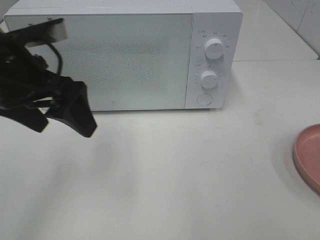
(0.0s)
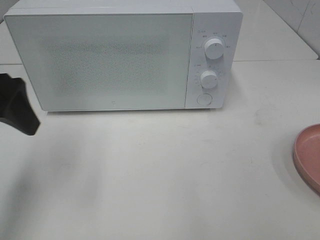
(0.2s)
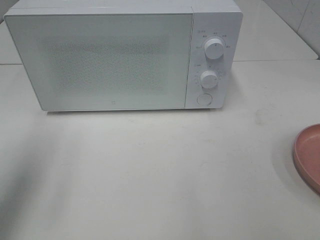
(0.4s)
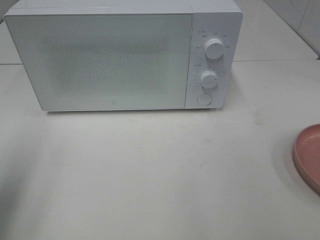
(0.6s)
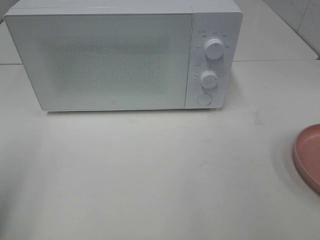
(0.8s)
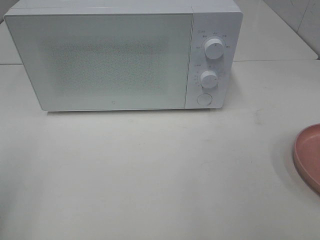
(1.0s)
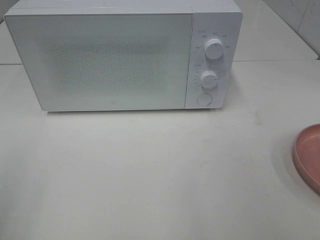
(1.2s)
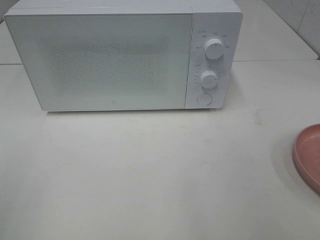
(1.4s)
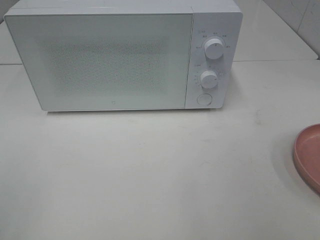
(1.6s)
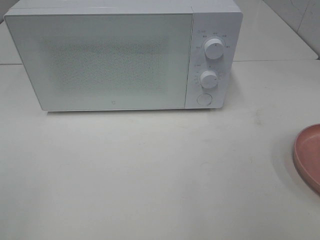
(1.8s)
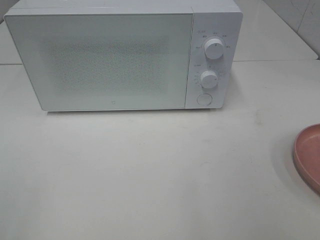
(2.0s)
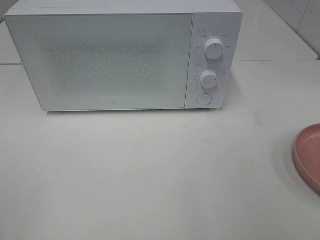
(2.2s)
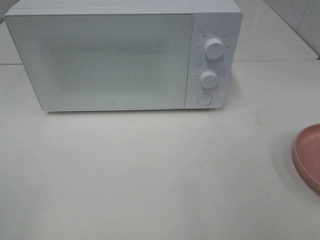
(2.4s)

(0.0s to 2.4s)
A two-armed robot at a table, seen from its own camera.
Task of the whole recording: Heat the burger.
0.0s - 1.2s: The left gripper heads backward and to the left, covering roughly 25 cm.

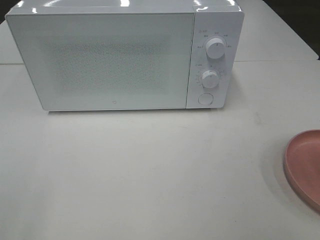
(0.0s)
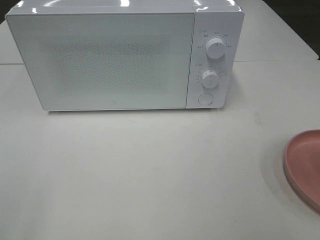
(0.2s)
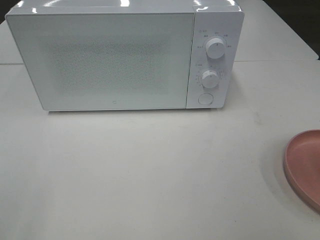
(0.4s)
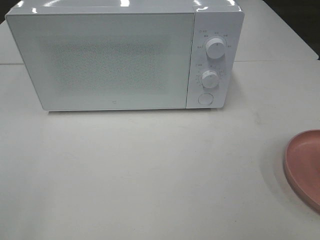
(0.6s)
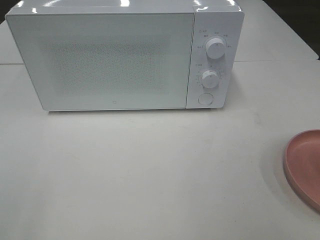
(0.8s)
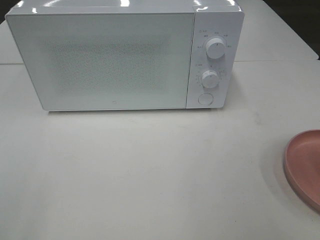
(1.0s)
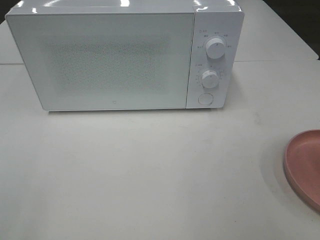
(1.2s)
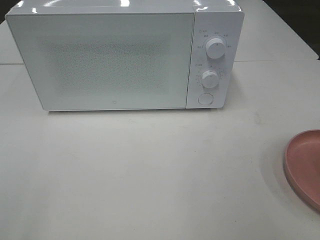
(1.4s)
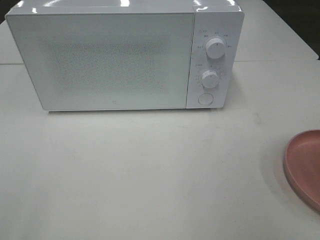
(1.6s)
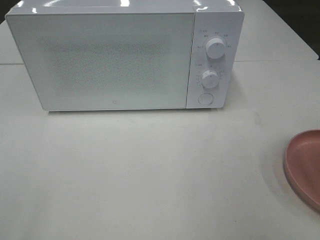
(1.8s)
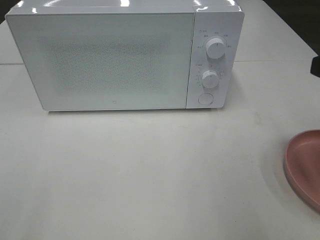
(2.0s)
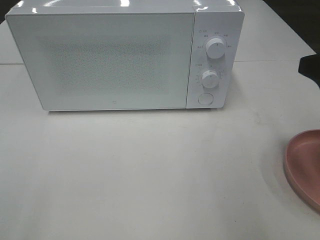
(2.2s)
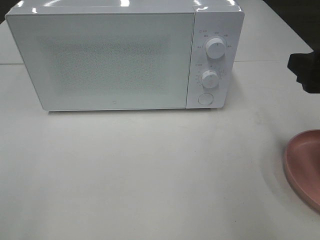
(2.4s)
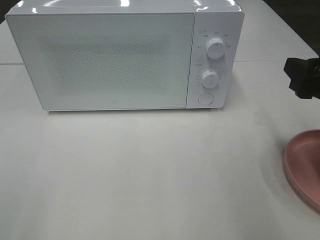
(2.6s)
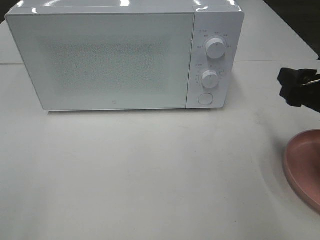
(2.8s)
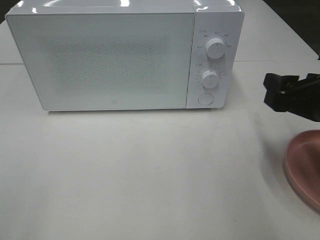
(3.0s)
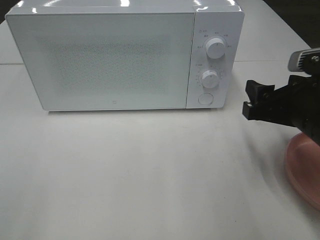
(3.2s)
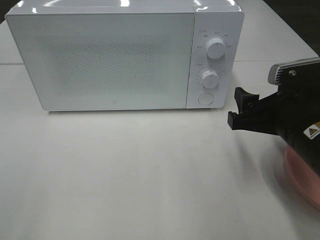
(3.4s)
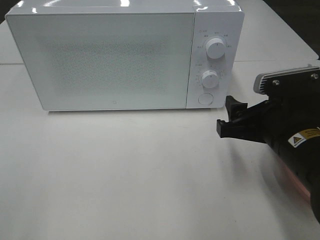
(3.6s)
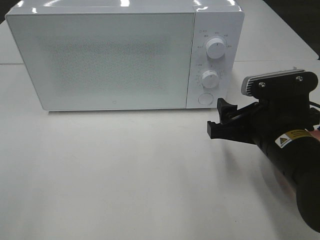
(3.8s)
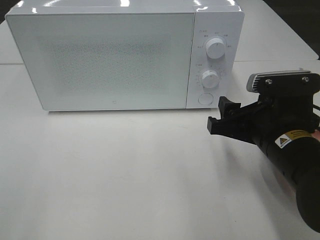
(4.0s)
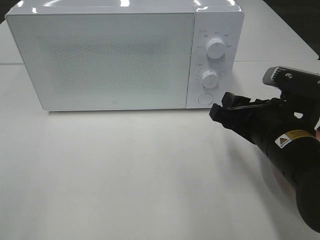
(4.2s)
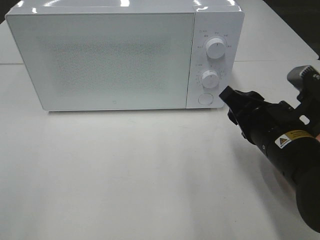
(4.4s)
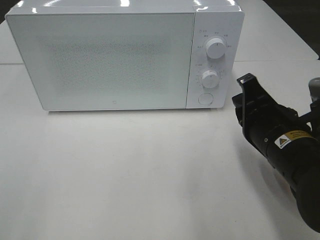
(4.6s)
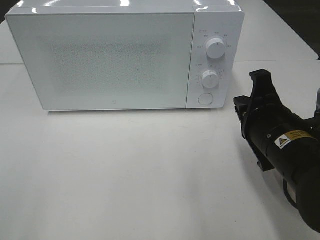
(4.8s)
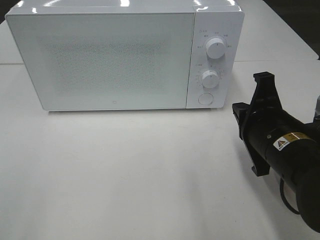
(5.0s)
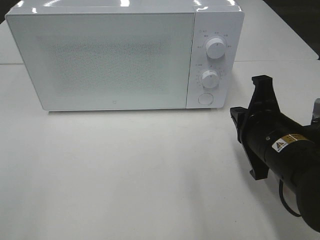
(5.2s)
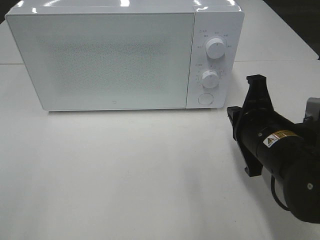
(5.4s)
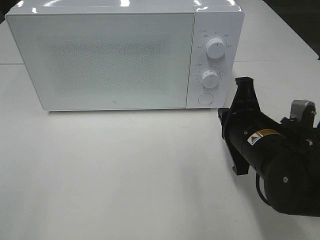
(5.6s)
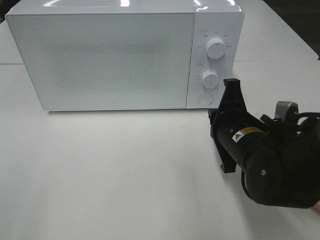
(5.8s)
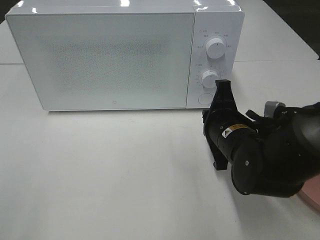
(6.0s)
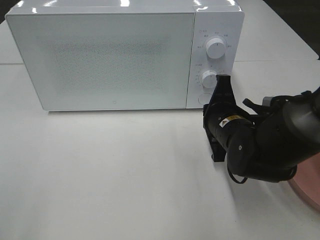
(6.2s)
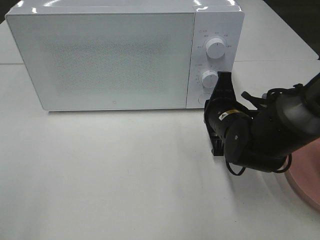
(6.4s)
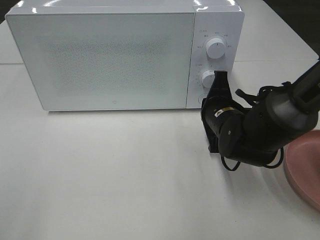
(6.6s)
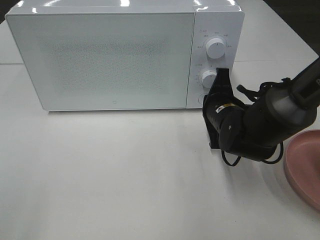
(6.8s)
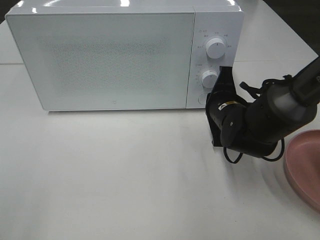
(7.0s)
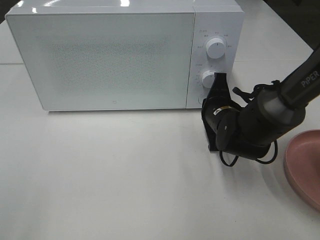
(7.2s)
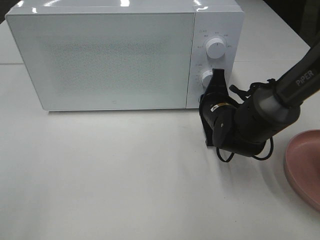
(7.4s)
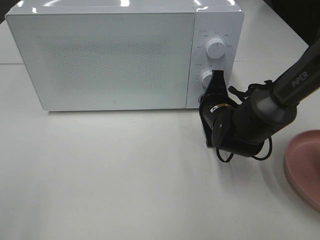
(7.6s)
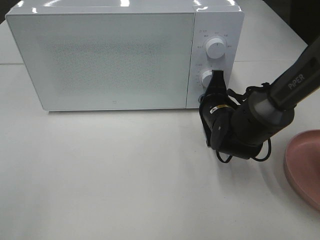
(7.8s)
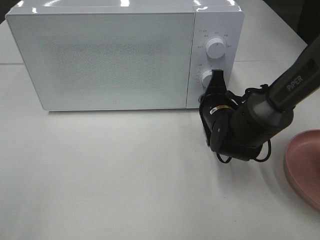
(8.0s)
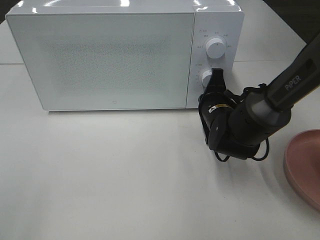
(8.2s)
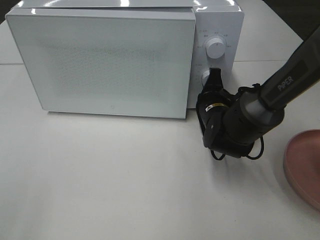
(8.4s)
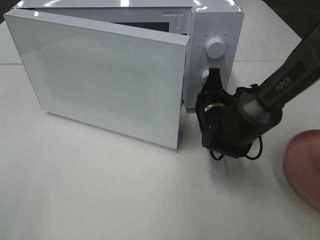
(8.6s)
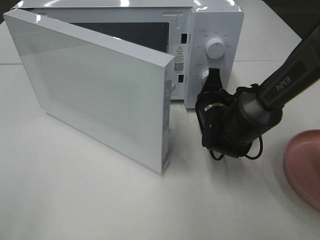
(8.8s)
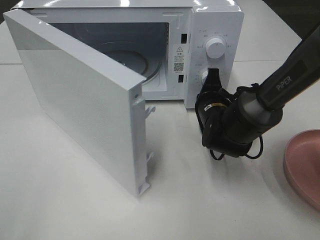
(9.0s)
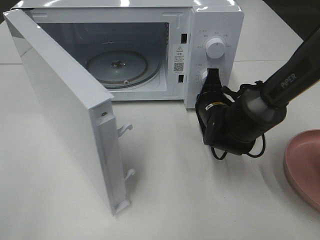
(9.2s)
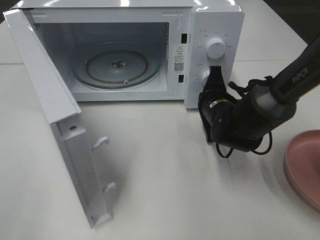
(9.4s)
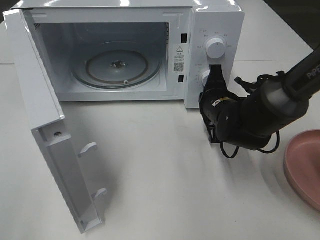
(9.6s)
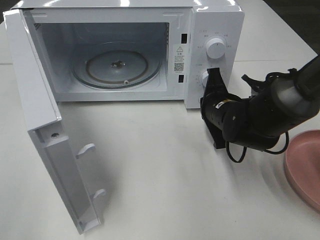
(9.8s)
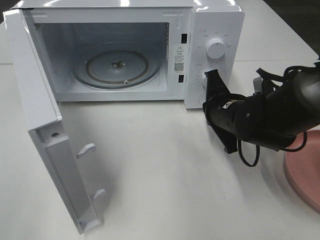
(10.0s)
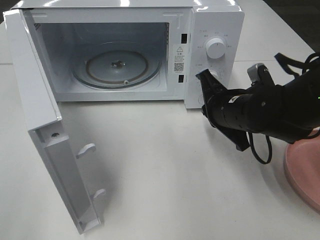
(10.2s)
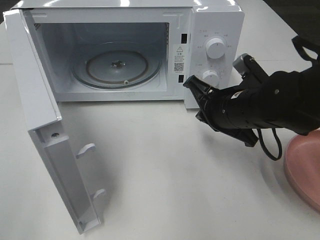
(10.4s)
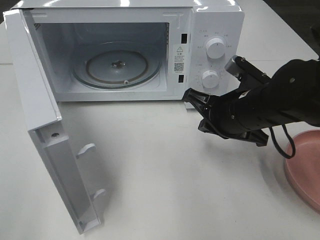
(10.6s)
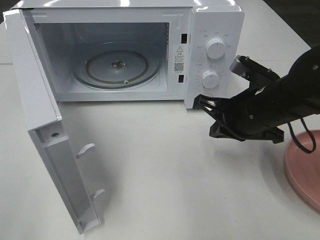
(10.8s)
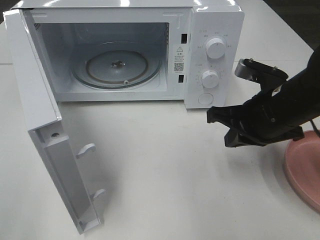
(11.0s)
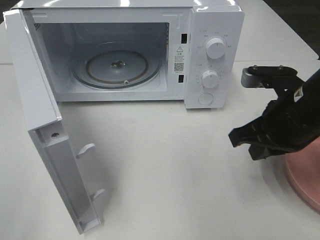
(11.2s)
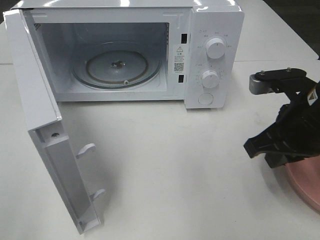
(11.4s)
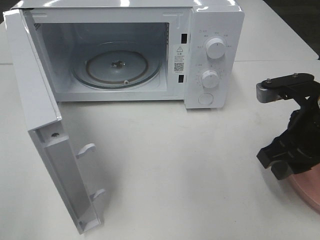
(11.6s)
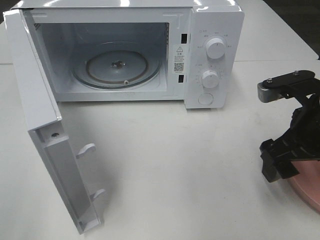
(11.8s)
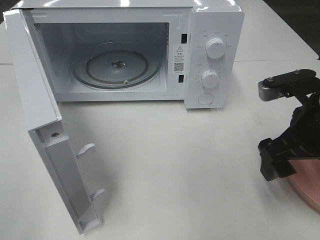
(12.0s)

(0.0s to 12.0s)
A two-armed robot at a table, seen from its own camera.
Task of the whole recording: Heat the burger.
Step, 0.0s - 9.6s: Right hand: press the switch.
1.6s - 3.0s: The right gripper travels forward and downward by roughly 15 cm.
3.0s - 4.4s: The right gripper heads to the left, covering approximately 5 cm, and closes.
4.4s - 6.0s: The right gripper heads forward, covering some 5 cm, and closes.
6.0s - 7.6s: The right gripper shifts approximately 10 cm forward.
9.0s - 10.4s: The right gripper is displaced upward and backward by some 10 cm.
10.4s - 12.0s: The right gripper goes approximately 10 cm to the right, backward and upward, and opens its fingers.

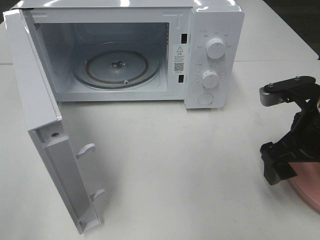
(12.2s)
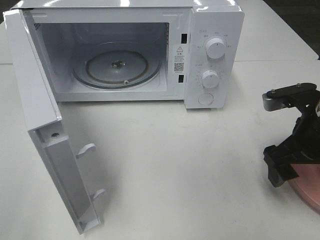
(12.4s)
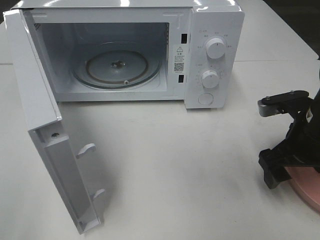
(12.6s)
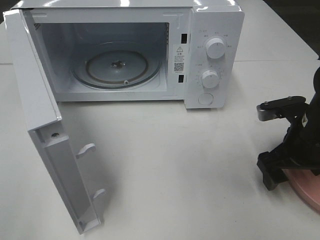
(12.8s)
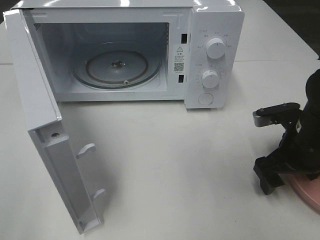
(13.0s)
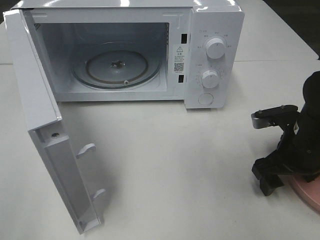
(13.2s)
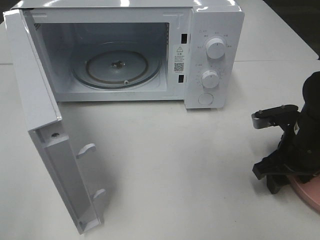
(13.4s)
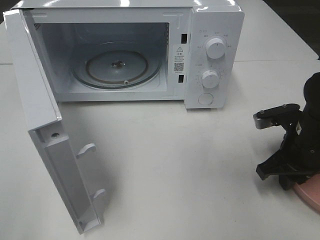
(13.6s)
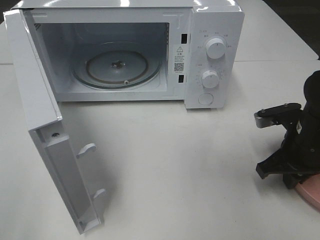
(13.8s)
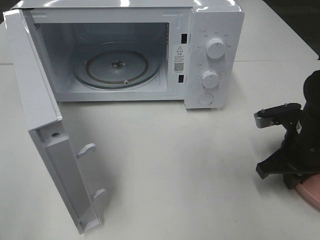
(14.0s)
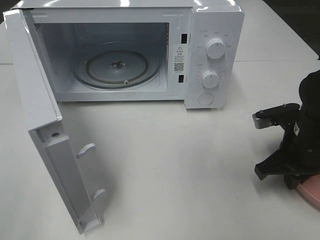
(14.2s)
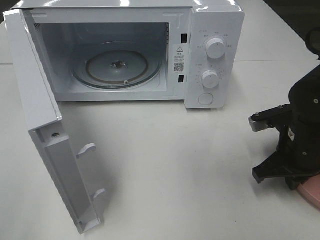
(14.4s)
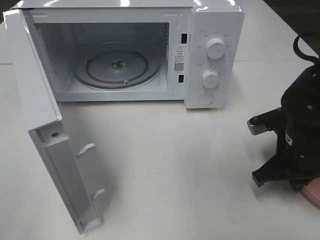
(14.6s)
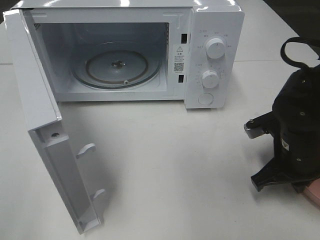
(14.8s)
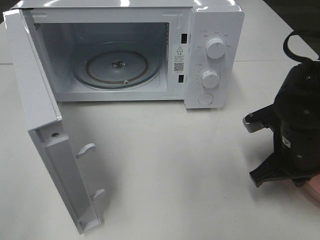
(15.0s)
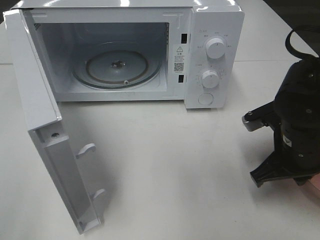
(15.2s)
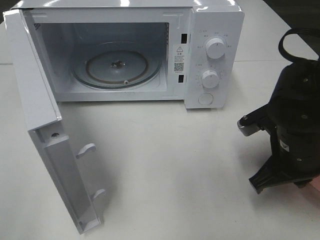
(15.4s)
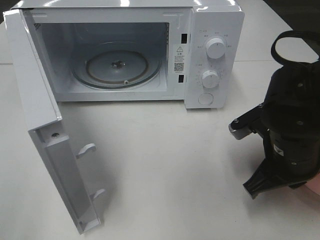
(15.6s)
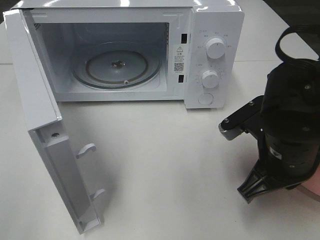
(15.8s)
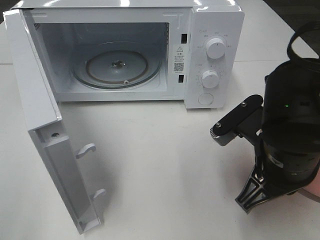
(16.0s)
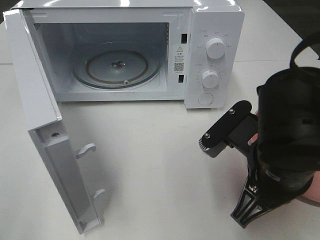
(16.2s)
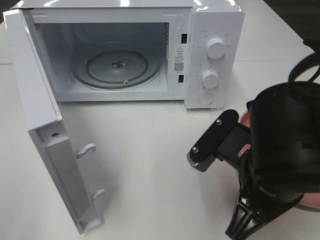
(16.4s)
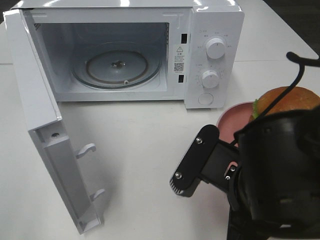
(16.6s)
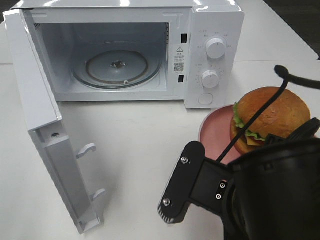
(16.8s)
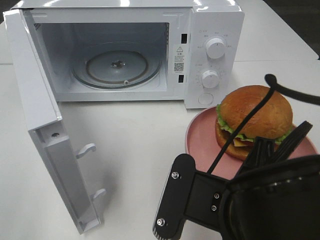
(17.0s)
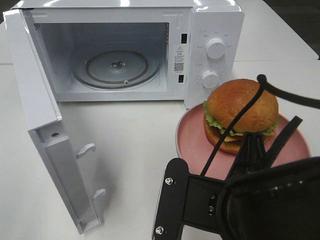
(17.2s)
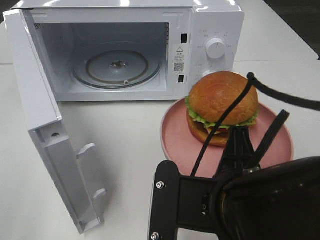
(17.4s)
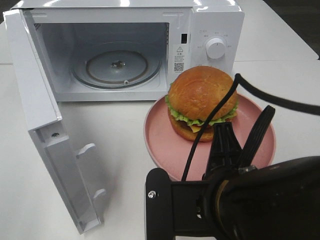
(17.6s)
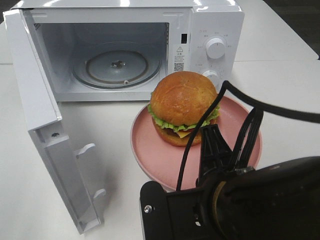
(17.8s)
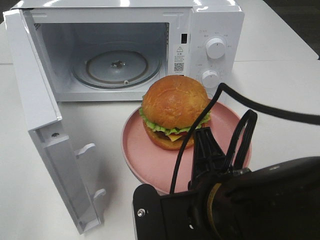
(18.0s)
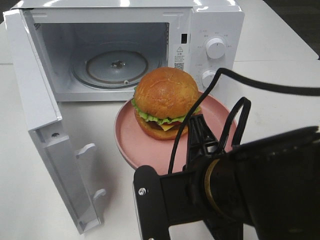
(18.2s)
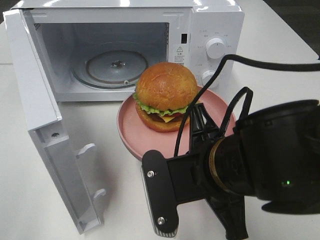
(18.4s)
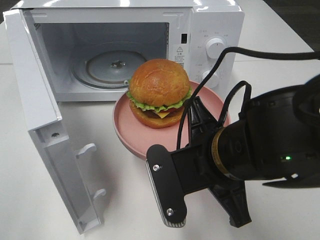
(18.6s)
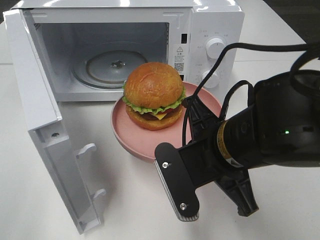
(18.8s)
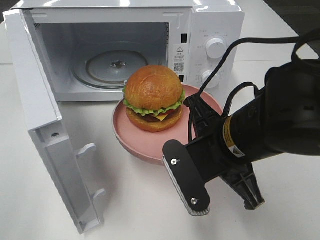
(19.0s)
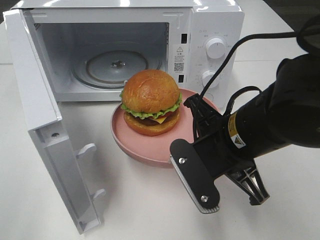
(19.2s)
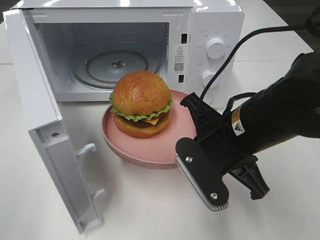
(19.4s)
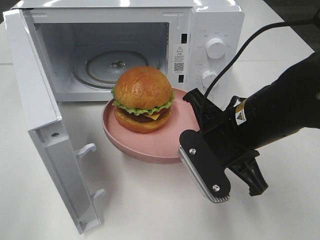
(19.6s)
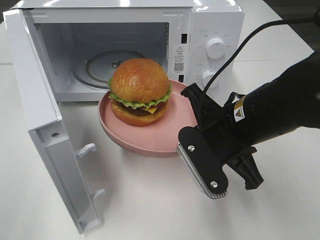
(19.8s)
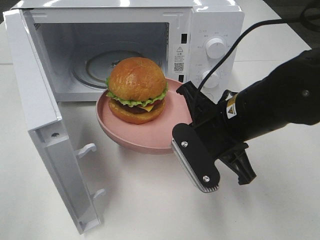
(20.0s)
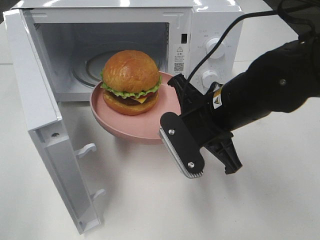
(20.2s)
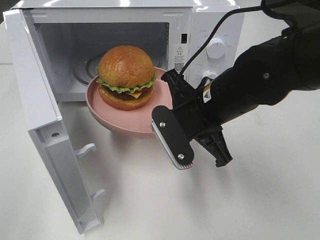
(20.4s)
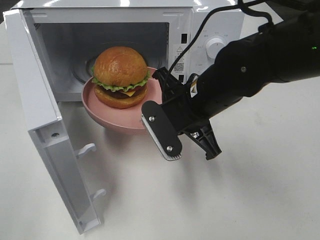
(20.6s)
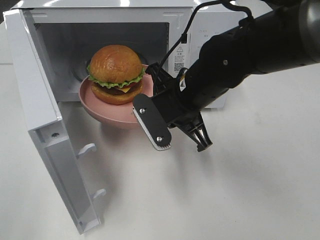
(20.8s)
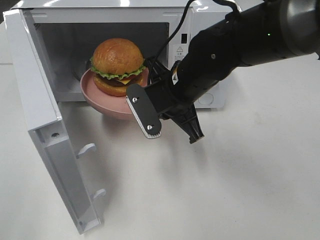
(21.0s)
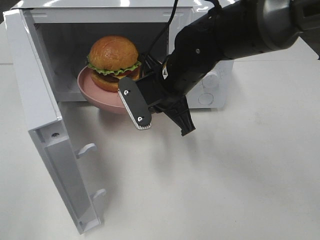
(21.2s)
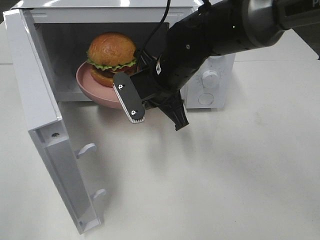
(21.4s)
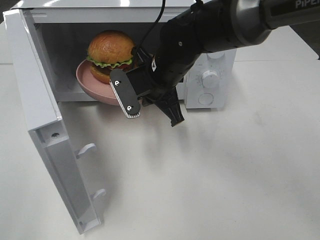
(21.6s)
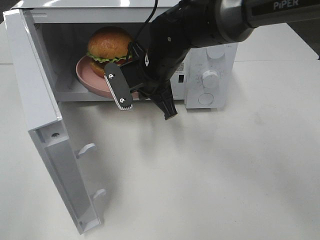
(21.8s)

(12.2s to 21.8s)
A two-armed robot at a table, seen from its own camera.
Task of the whole recording: Heat the burger.
Step, 12.2s - 14.4s: Right hand: grab the plate with the hamburger.
12.2s - 13.8s: The right gripper goes some 5 cm downward, and closes.
13.8s - 15.4s: The right gripper shifts approximately 5 cm to the left.
15.4s - 17.0s: The right gripper moves backward and to the left, some 15 cm.
17.0s - 18.6s: The right gripper moves forward, about 5 cm.
18.6s - 20.2s: The right gripper is displaced forward by roughly 10 cm.
20.2s - 21.8s: The right gripper goes some 15 cm forward and to the left.
